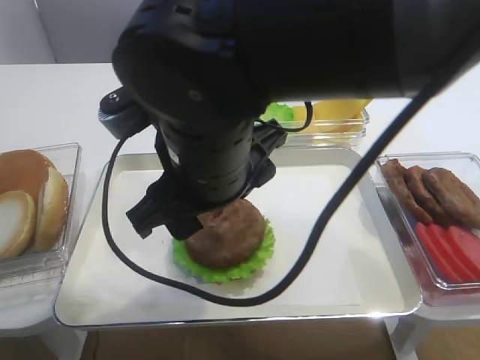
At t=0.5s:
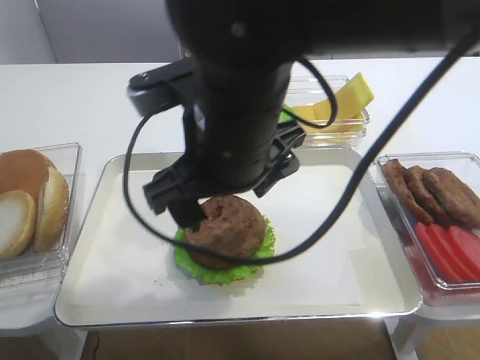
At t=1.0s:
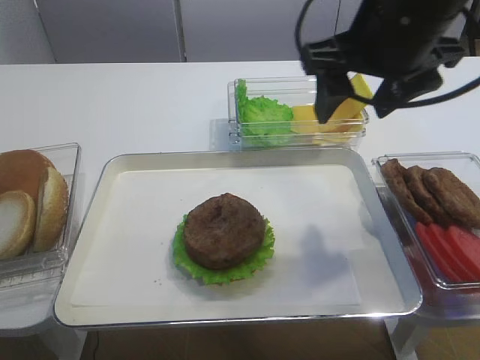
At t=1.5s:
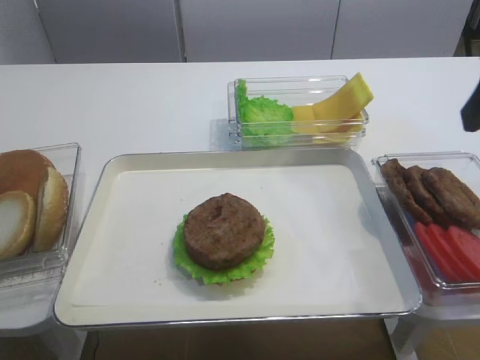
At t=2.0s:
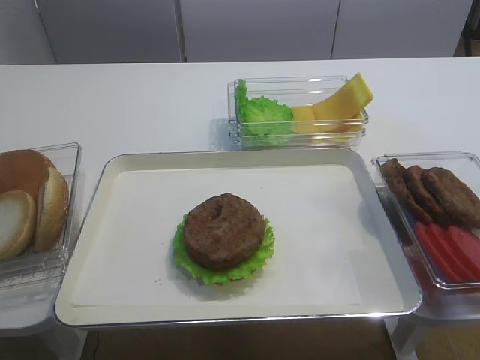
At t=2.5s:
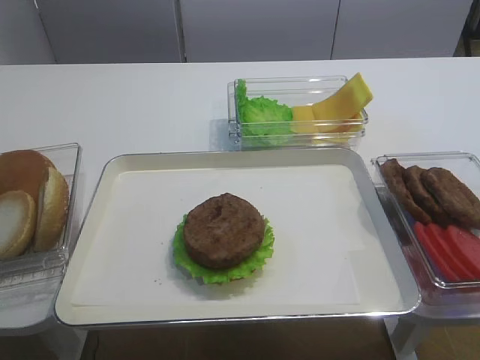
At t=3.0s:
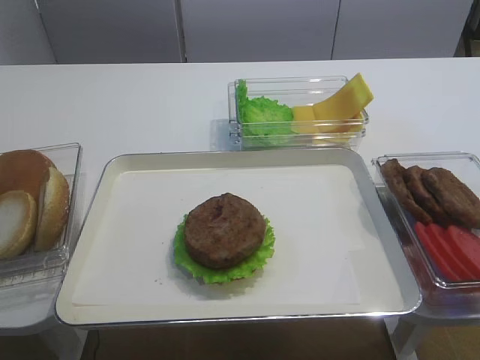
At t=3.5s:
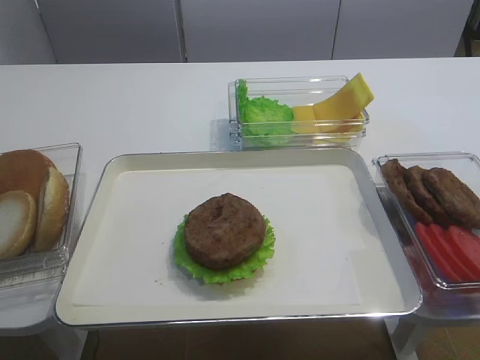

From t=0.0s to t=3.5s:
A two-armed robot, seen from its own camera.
From t=0.0s to t=2.0s: The right gripper travels to the right and backward by about 30 cm.
